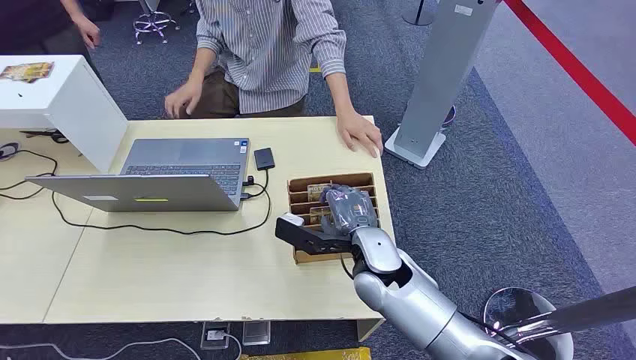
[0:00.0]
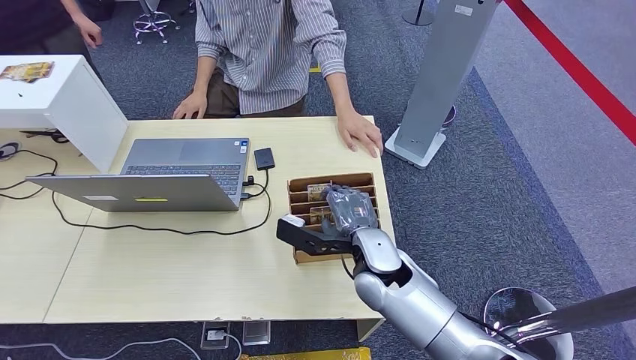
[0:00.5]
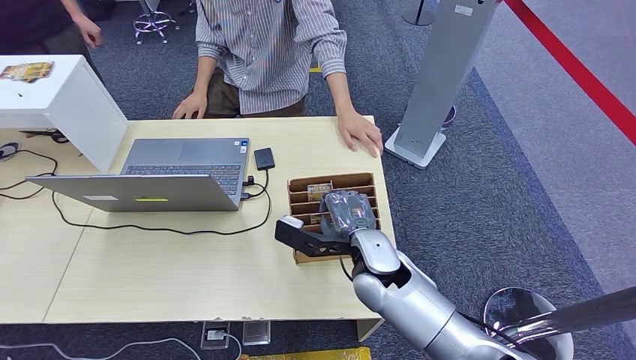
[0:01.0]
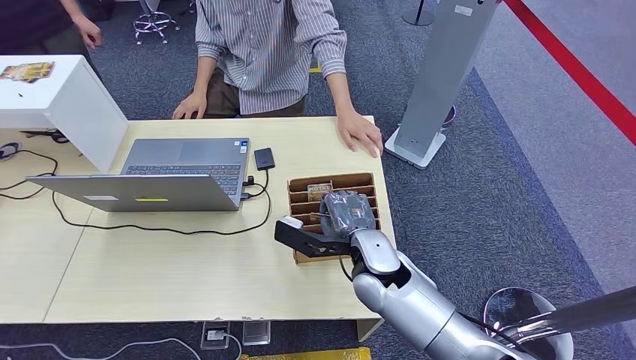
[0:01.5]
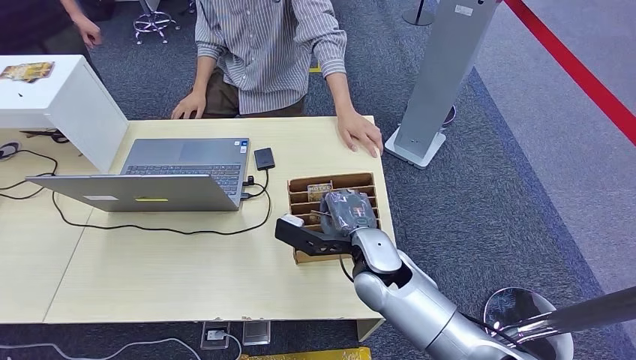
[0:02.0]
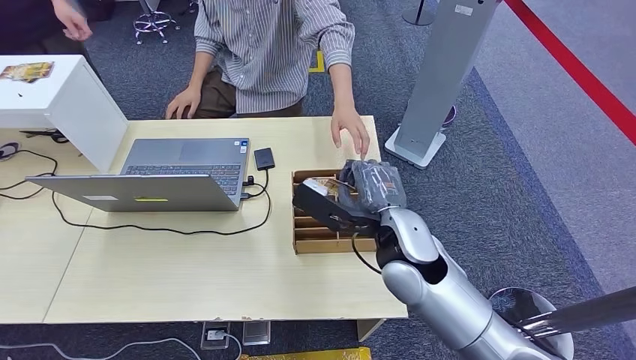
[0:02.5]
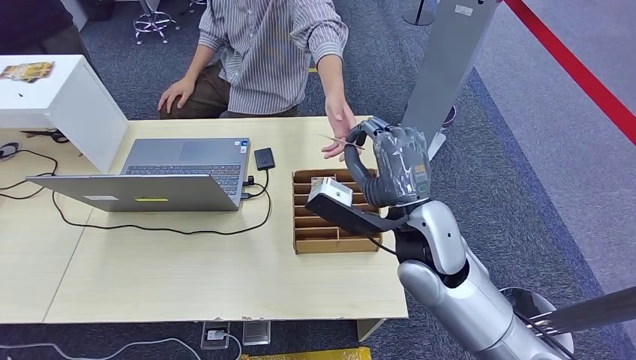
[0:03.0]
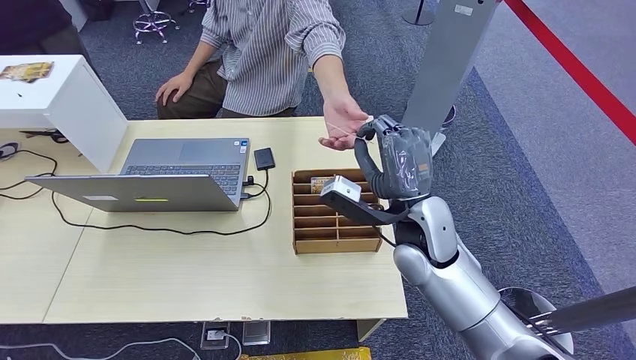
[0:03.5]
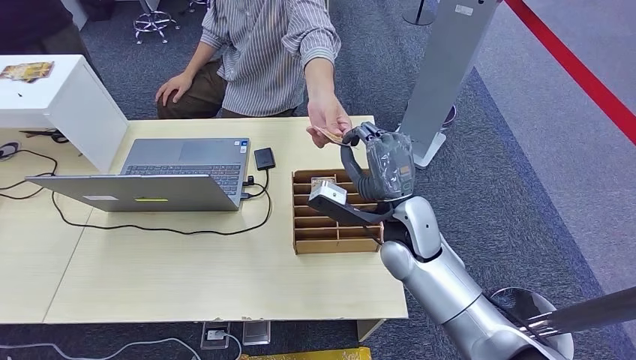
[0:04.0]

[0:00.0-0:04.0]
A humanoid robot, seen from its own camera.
Step, 0:00.0 to 0:02.0: Pick up the key card from the card box.
Step, 0:03.0 to 0:04.0: Hand the key card to the target.
0:02.0 to 0:04.0: The right hand moves upward, approximately 5 cm.

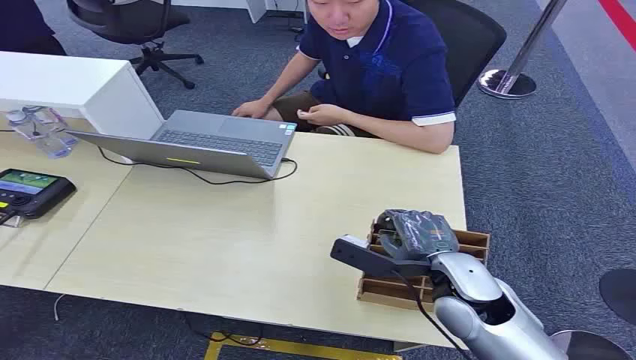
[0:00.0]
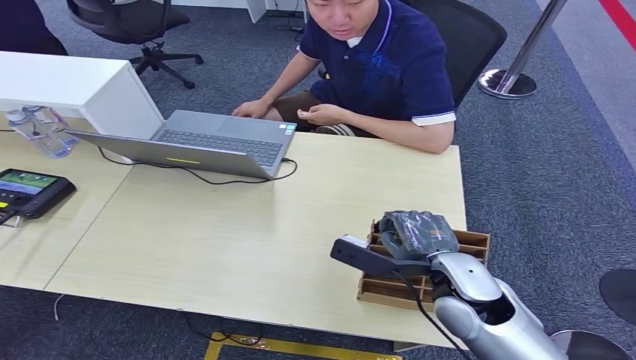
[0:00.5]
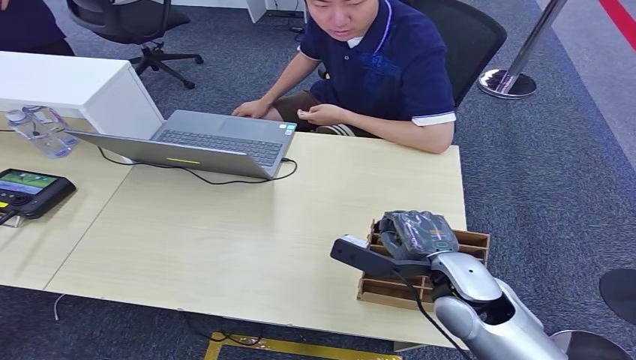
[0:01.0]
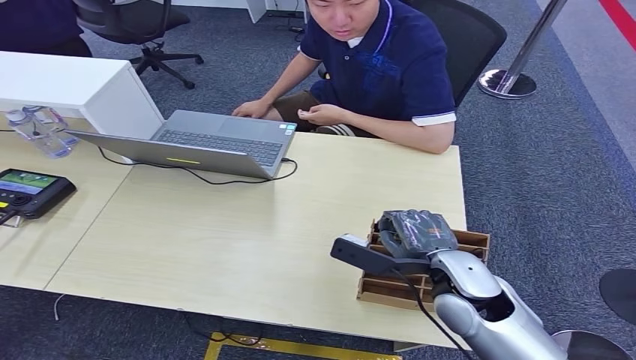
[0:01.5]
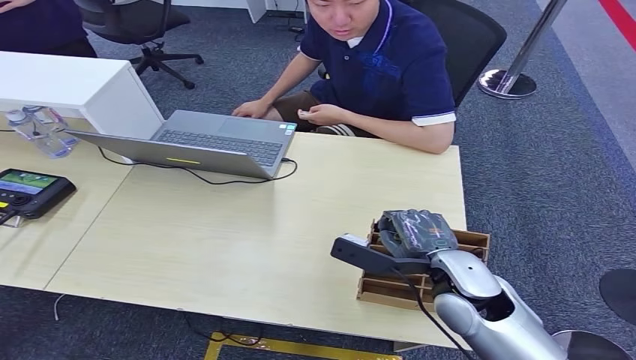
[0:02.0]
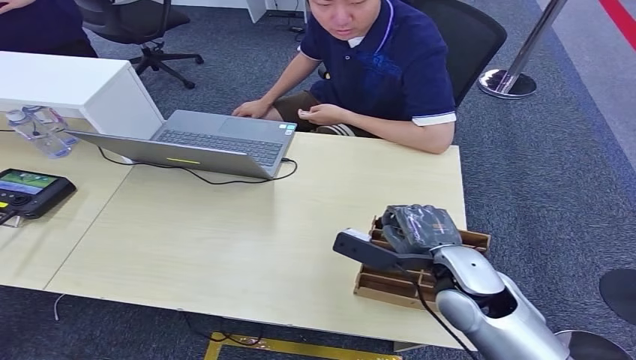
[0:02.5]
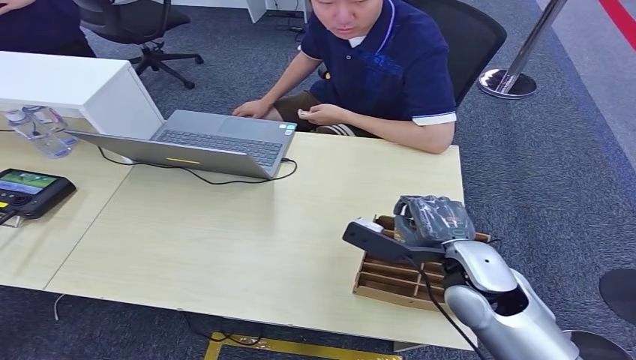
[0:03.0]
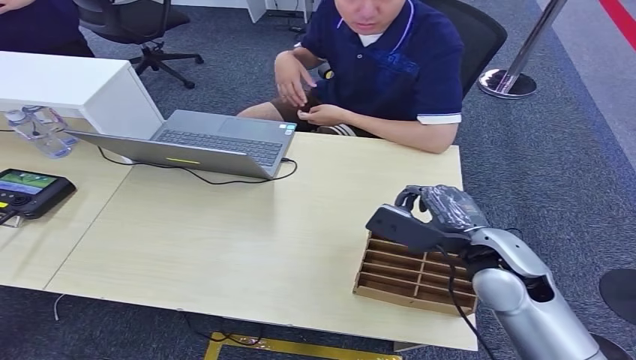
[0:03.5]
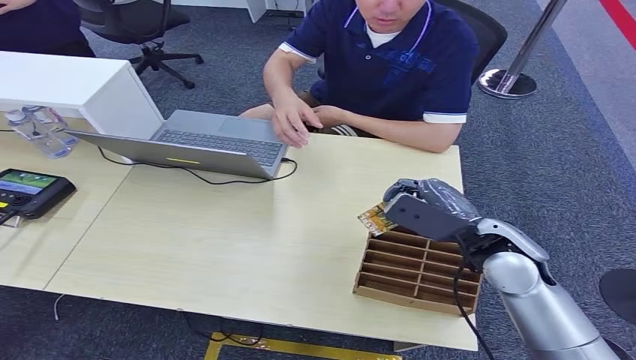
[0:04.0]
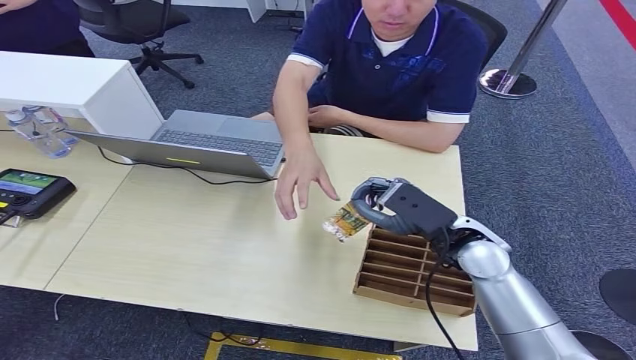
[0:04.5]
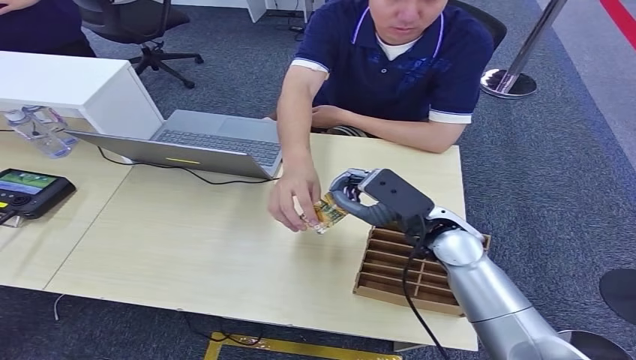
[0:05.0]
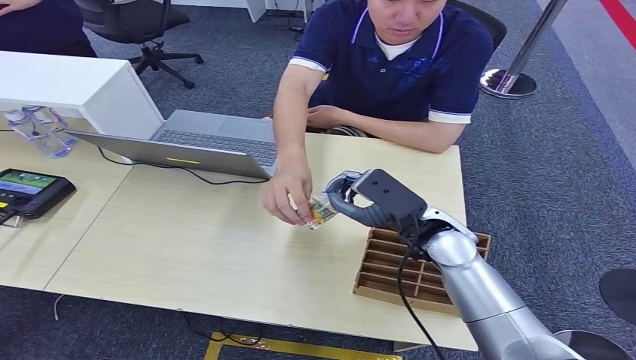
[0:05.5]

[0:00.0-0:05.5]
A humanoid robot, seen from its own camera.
Step, 0:00.0 to 0:04.0: Pick up the key card from the card box.
Step, 0:04.5 to 0:05.5: Hand the key card to the target.
0:02.0 to 0:03.5: The right hand changes place by approximately 5 cm.
0:03.5 to 0:05.5: The right hand heads to the left and forward, covering some 10 cm.
